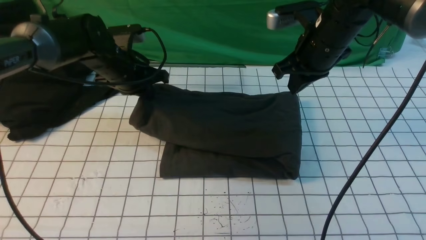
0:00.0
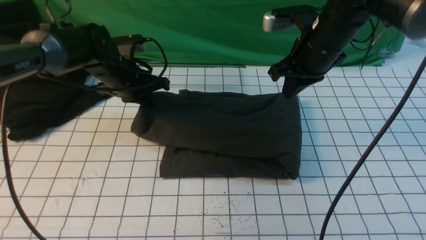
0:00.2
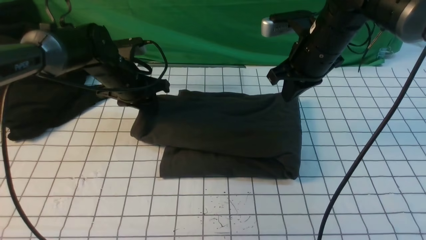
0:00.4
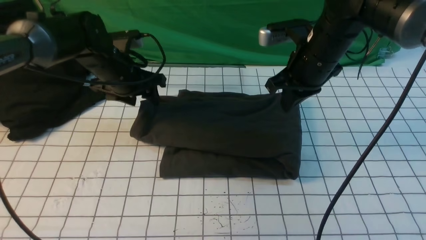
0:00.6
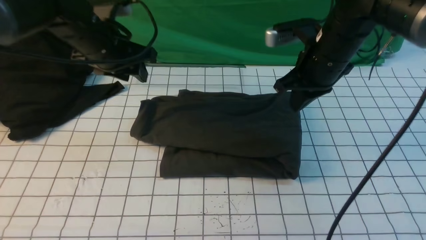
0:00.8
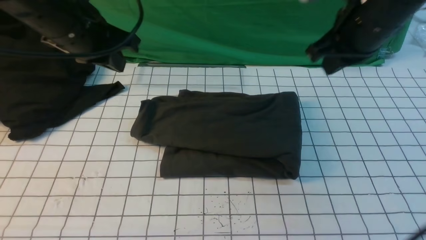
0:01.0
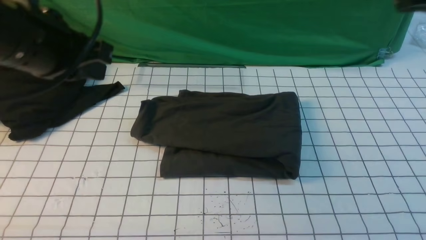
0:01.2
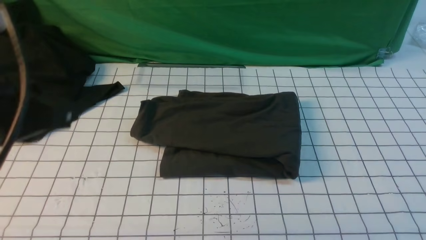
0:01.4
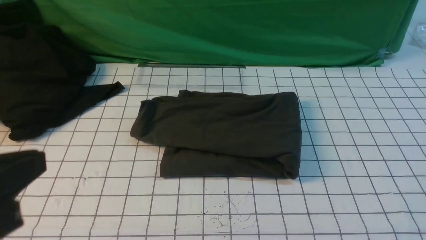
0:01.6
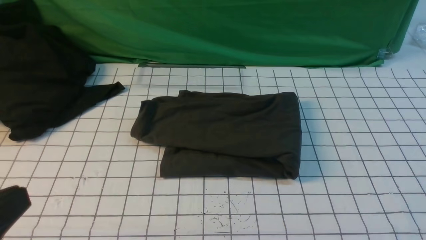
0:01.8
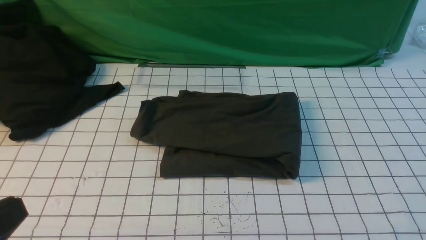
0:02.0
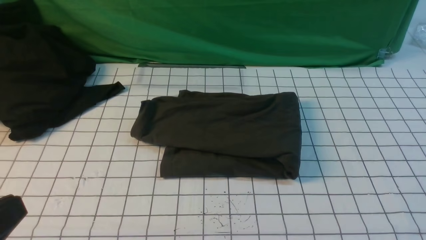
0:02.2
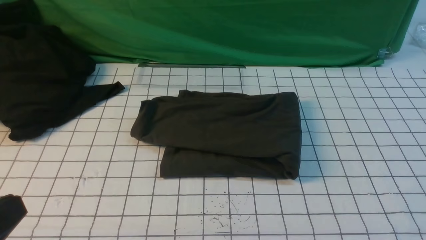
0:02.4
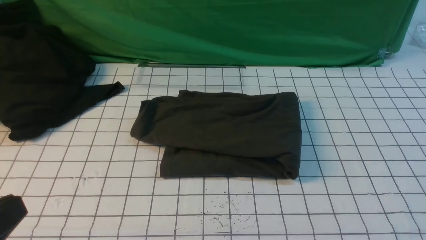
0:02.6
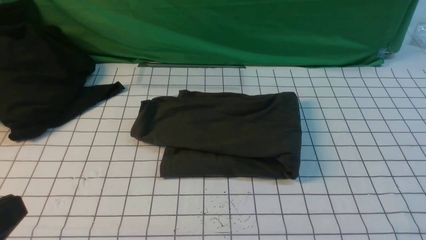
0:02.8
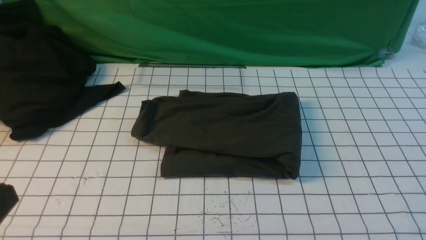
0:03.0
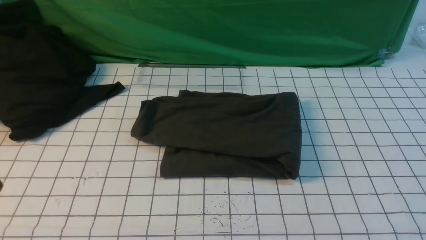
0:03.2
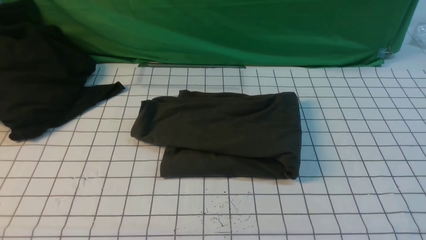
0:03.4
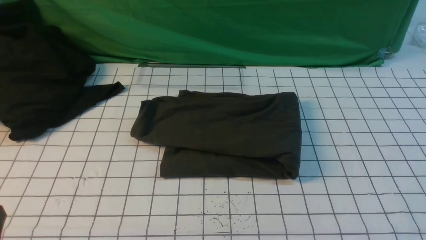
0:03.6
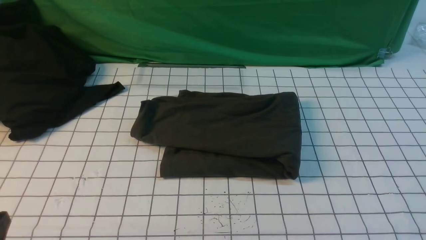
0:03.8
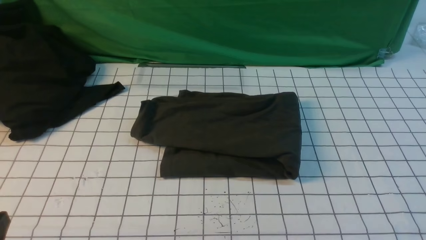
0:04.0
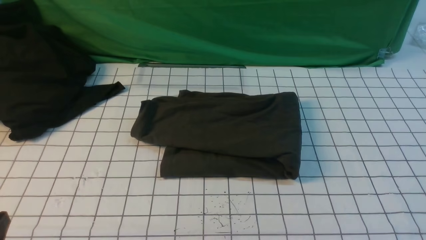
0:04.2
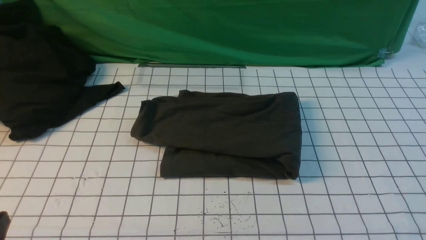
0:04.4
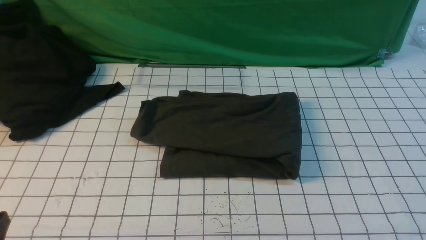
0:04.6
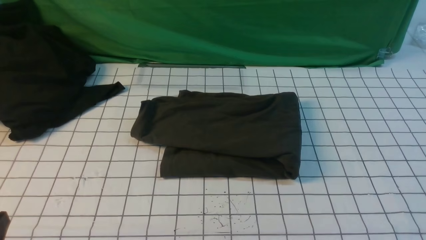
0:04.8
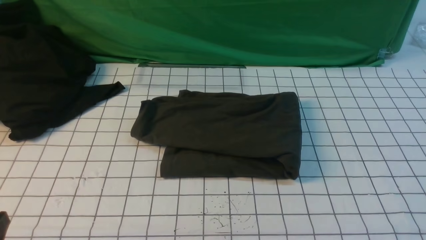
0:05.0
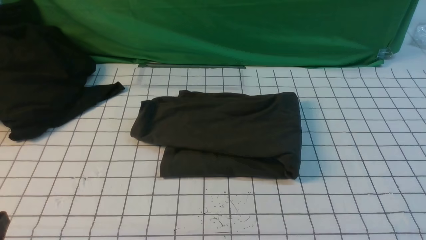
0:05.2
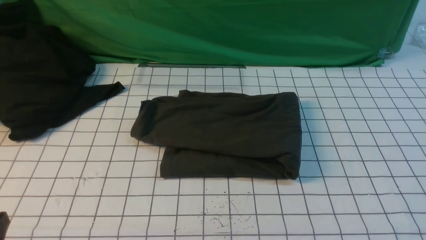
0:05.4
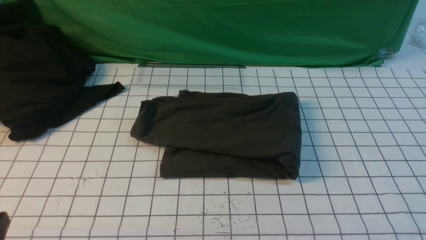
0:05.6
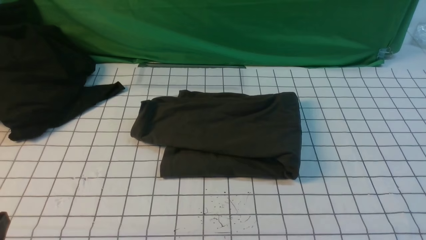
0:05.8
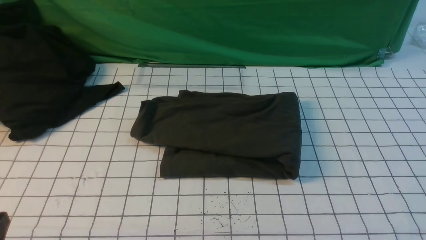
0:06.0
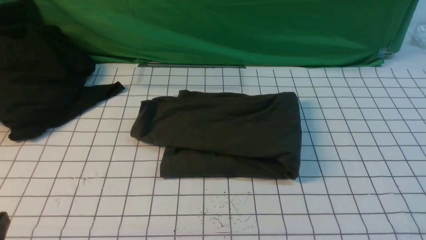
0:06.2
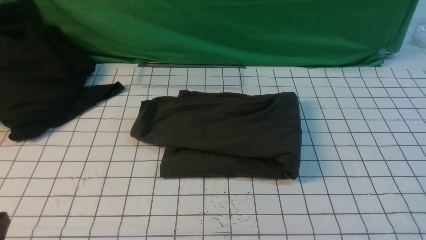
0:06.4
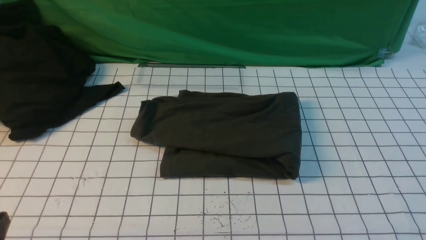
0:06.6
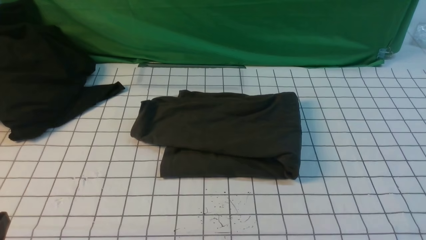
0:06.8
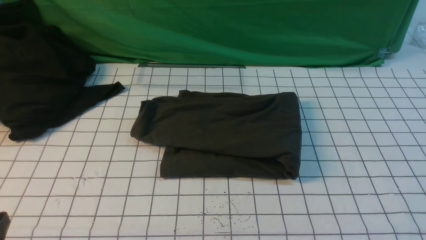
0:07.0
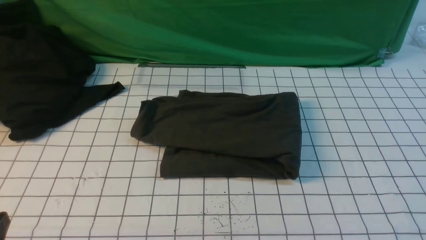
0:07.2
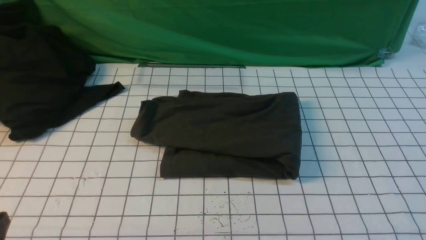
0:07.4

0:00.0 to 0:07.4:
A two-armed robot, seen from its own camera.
0:00.0 to 0:01.4: The right gripper is displaced backward, upward and to the right by about 35 cm. The left gripper travels backward and upward by roughly 35 cm, and opens and closes again.
0:01.4 to 0:03.0: The left gripper heads backward and downward, covering roughly 15 cm.
0:03.0 to 0:04.4: The left gripper moves downward, roughly 10 cm.
0:06.0 to 0:07.4: Neither gripper changes place.

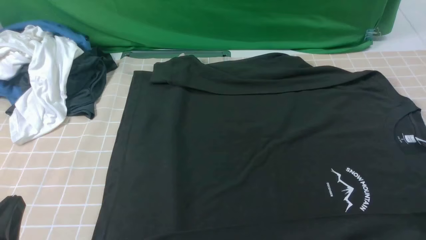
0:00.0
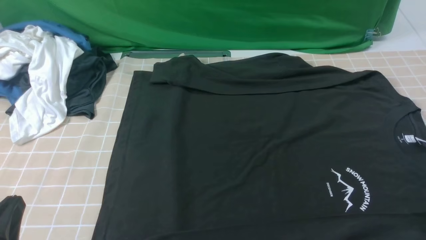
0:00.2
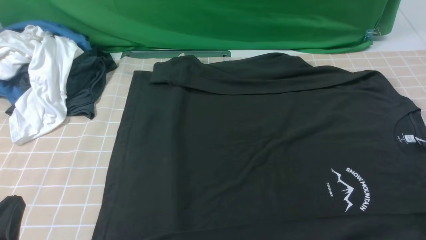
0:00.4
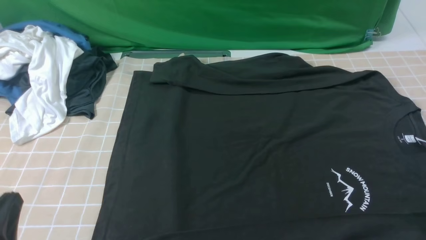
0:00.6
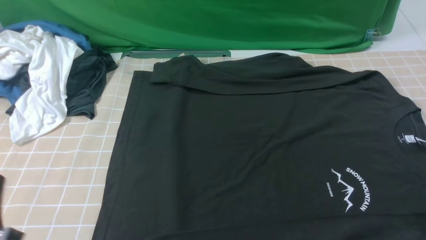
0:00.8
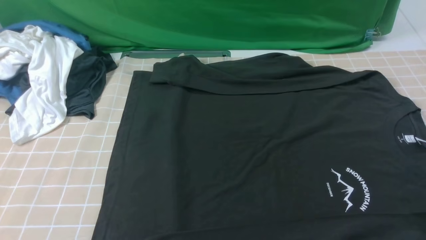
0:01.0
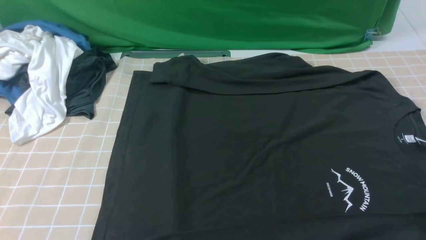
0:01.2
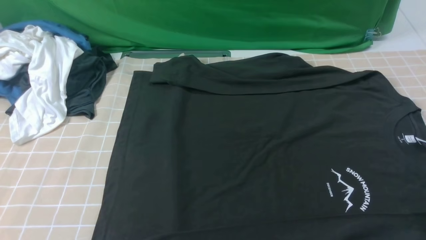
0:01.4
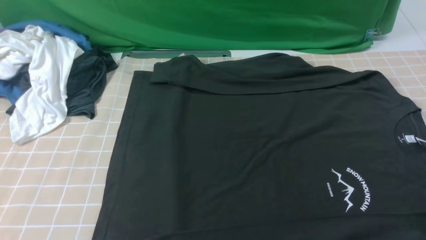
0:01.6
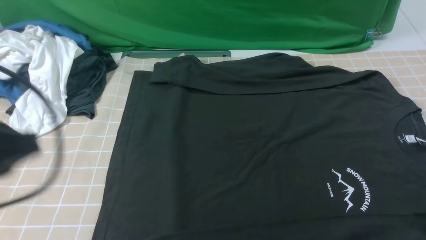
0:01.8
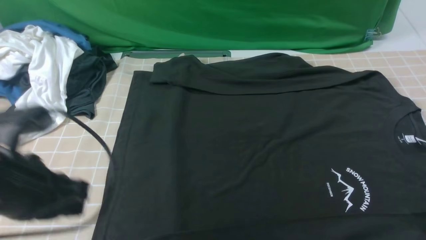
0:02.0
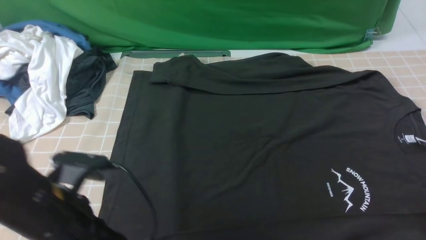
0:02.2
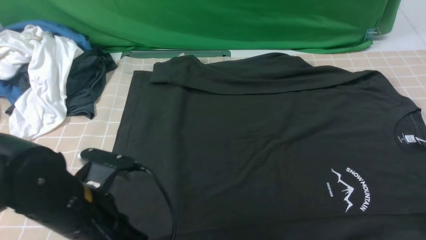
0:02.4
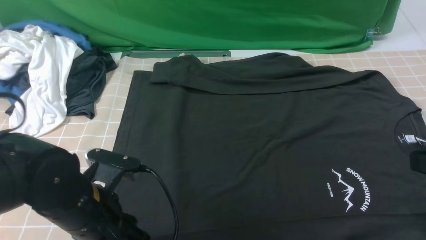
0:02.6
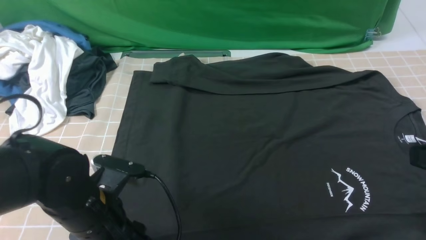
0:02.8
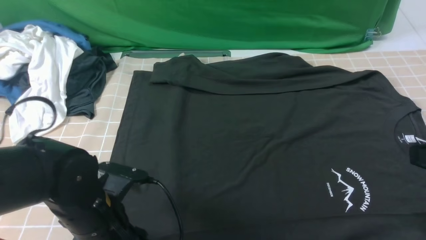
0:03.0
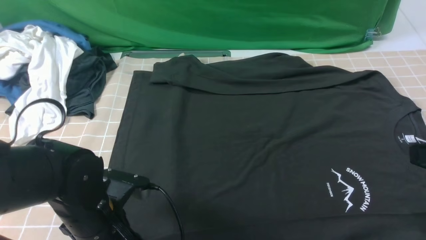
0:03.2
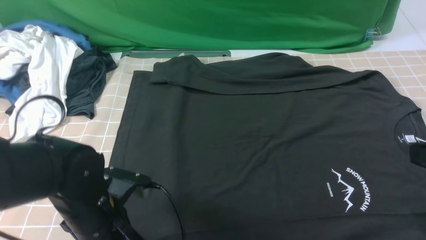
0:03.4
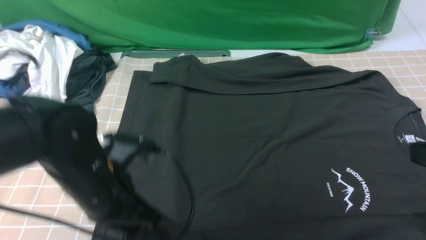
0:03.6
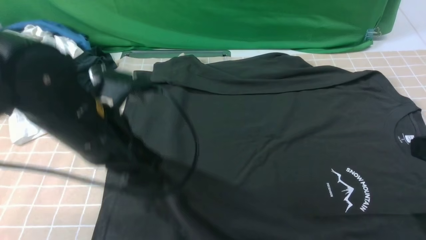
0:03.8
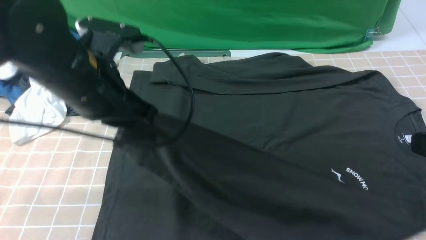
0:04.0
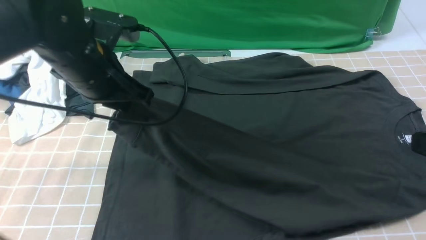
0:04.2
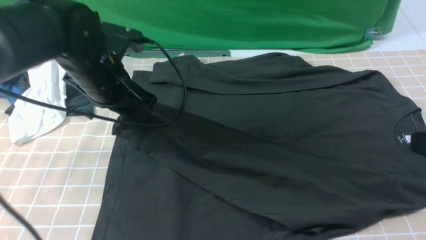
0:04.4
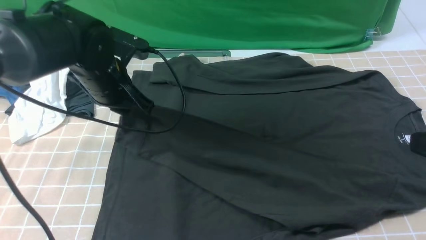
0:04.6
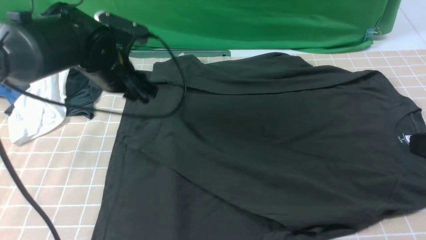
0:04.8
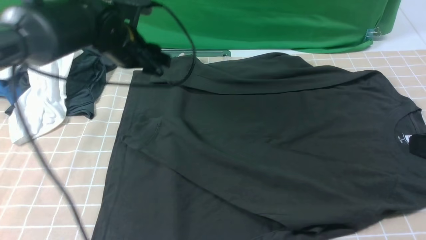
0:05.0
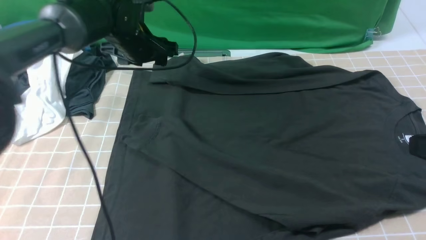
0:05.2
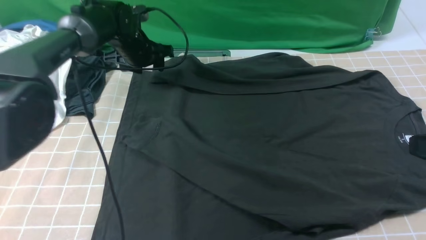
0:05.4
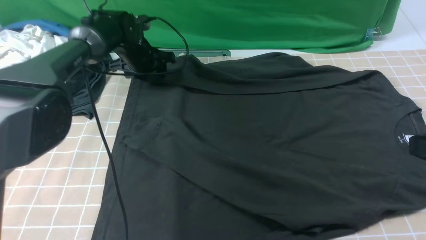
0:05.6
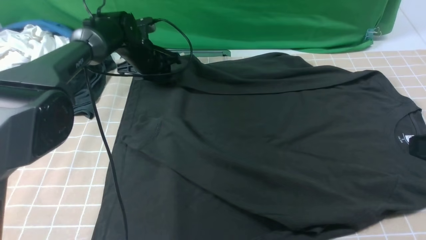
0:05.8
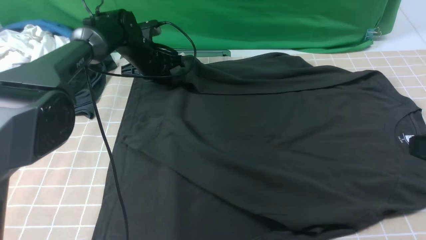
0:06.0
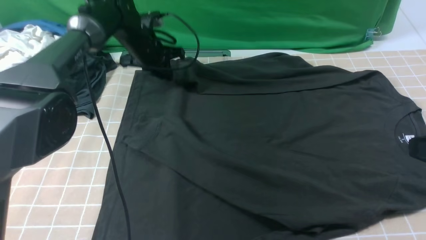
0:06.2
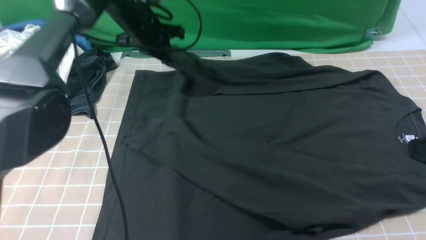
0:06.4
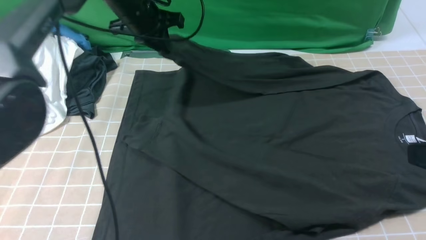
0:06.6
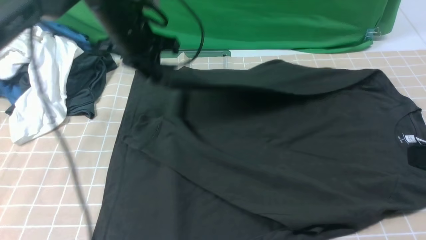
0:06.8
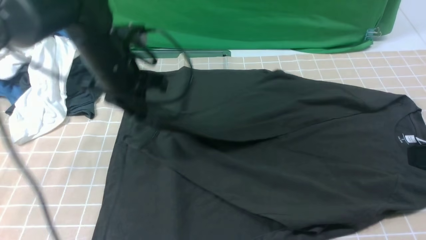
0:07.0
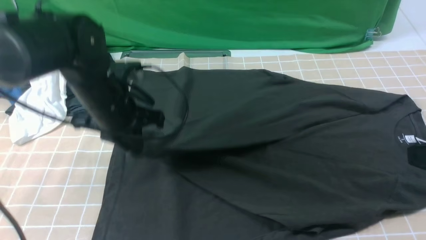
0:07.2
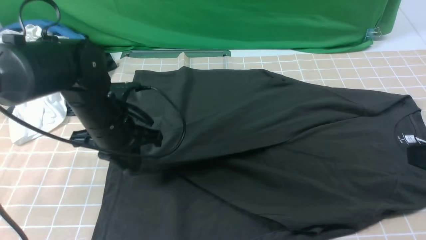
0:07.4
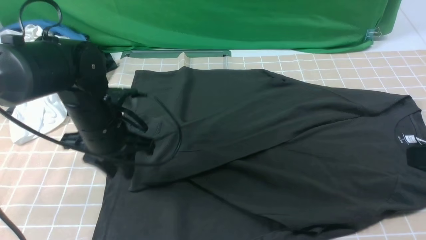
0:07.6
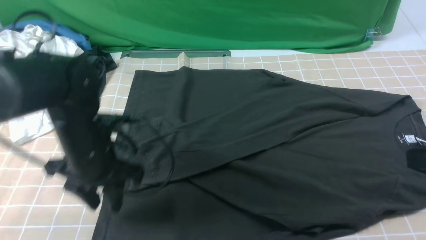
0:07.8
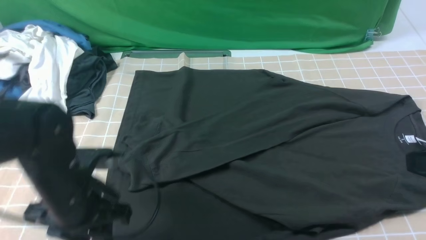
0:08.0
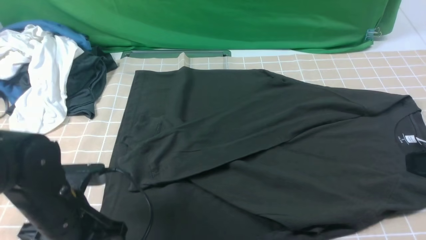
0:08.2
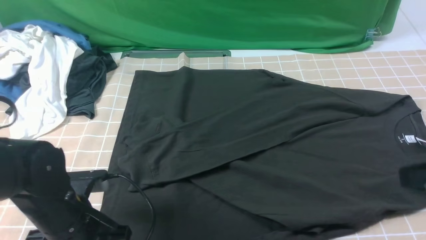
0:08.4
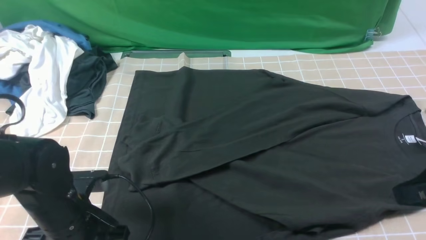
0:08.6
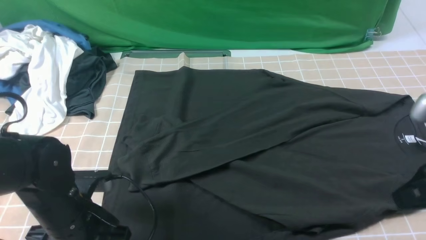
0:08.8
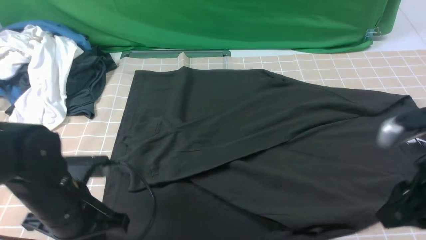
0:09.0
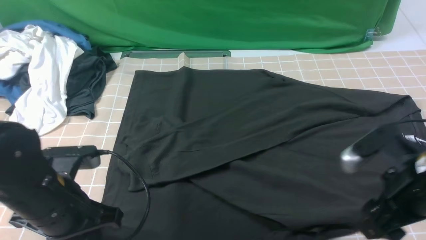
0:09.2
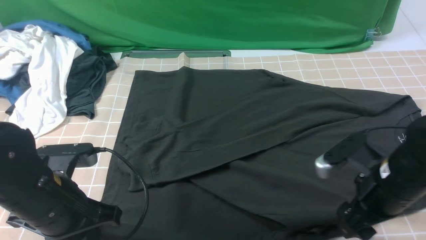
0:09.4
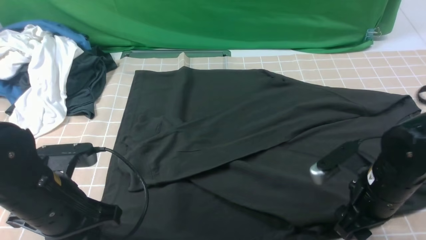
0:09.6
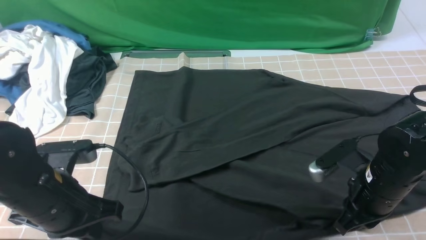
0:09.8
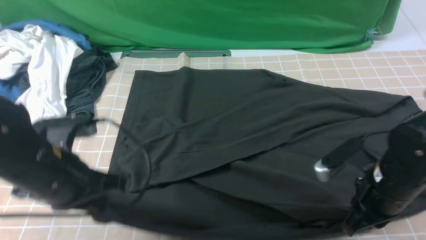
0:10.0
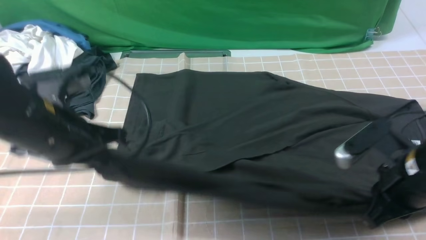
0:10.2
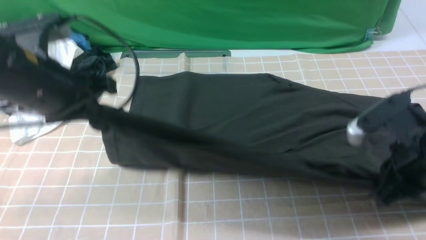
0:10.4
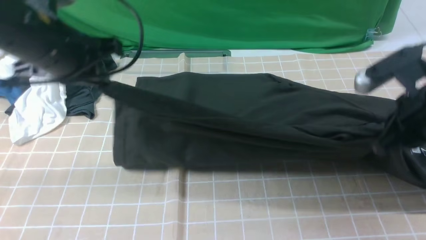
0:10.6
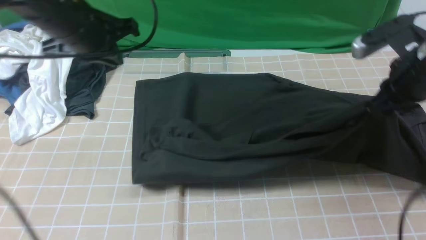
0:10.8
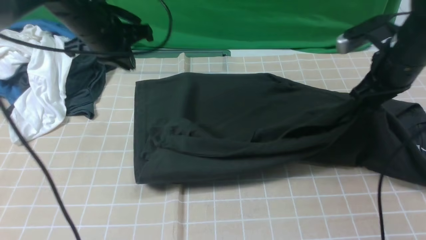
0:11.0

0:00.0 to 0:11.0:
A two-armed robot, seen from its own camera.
Step, 0:00.0 to 0:03.2: use the left arm to clamp the cuff closest to it.
Step, 0:03.4 to 0:04.6: use the left arm to drag and place the cuff at the centered position on the left edge of the fabric.
Step, 0:04.8 to 0:06.0: use the left arm to clamp the cuff farthest from it.
Step, 0:06.2 to 0:07.6: use the left arm to drag and drop the cuff onto the cuff closest to the left arm.
Step, 0:07.8 to 0:09.8: use both arms simultaneously to clamp the lower edge of the clothing fabric.
0:00.0 to 0:01.6: The left gripper travels upward by approximately 15 cm.
0:01.6 to 0:03.2: The left gripper shifts about 20 cm downward, to the right and forward, and opens.
0:03.2 to 0:04.8: The left gripper goes roughly 20 cm forward and upward, and closes and opens again.
0:04.8 to 0:06.2: The left gripper heads forward, covering approximately 15 cm, and closes its fingers.
0:06.2 to 0:07.8: The left gripper is displaced backward by some 25 cm, and opens up.
0:07.8 to 0:09.4: The right gripper travels downward, forward and to the left by roughly 15 cm, and opens its fingers, while the left gripper moves backward, about 5 cm, and closes up.
0:09.4 to 0:11.0: The left gripper travels forward by roughly 20 cm, while the right gripper goes about 15 cm forward and upward, and closes.
